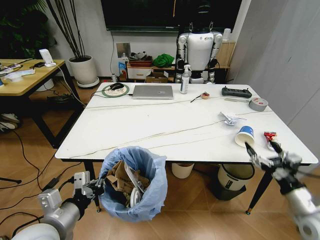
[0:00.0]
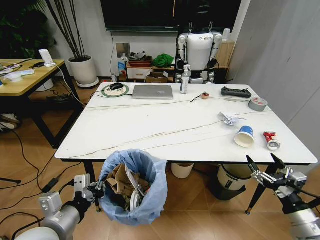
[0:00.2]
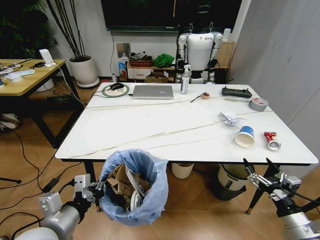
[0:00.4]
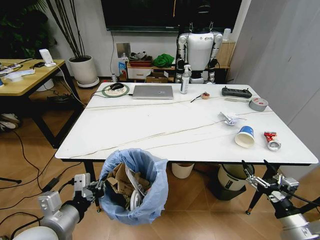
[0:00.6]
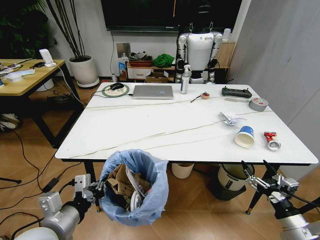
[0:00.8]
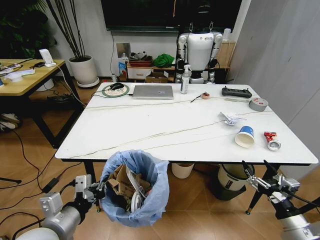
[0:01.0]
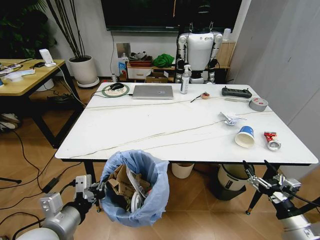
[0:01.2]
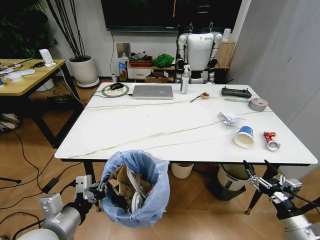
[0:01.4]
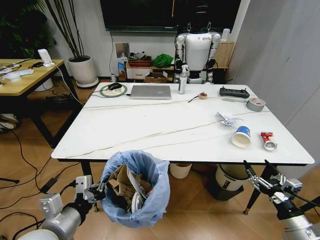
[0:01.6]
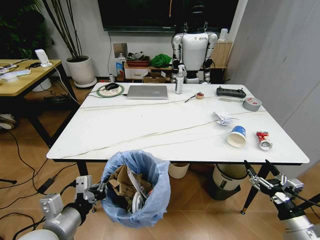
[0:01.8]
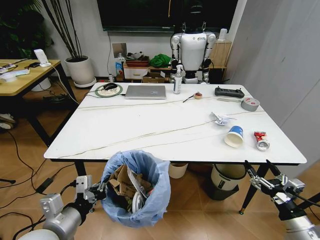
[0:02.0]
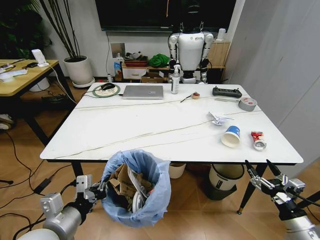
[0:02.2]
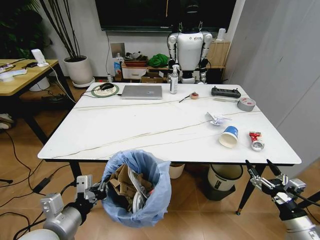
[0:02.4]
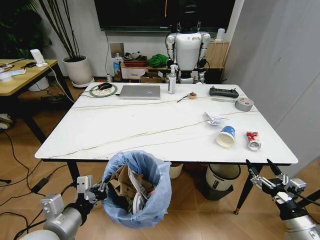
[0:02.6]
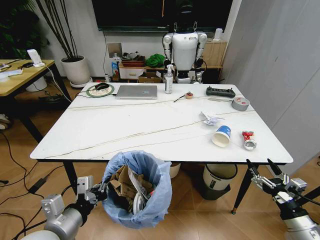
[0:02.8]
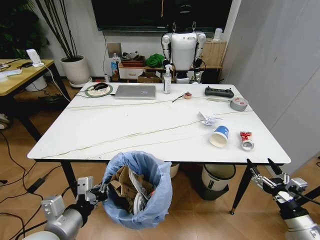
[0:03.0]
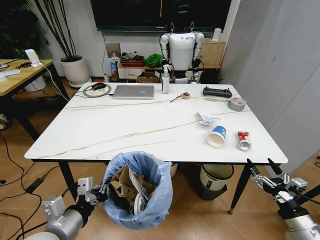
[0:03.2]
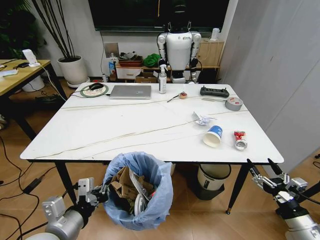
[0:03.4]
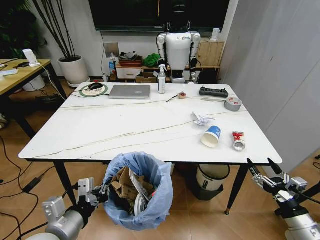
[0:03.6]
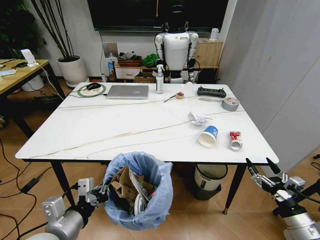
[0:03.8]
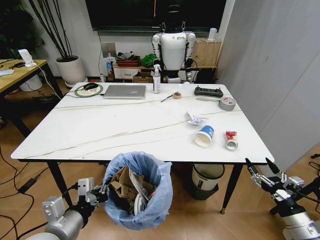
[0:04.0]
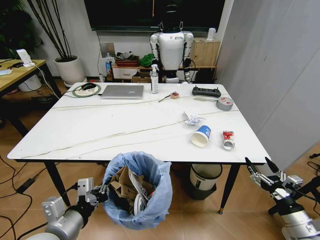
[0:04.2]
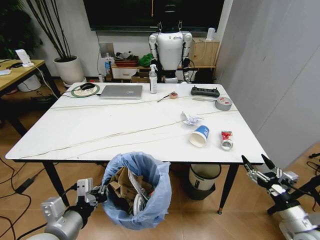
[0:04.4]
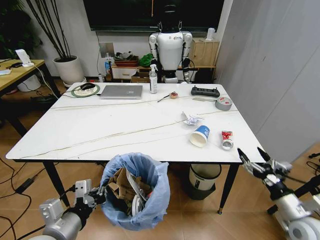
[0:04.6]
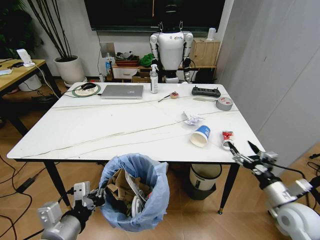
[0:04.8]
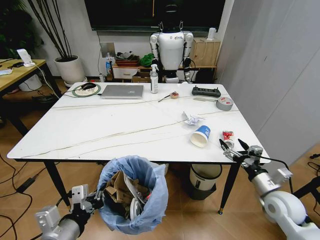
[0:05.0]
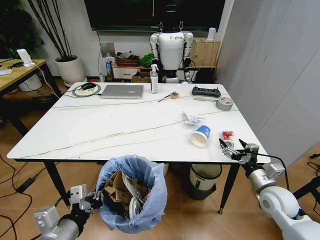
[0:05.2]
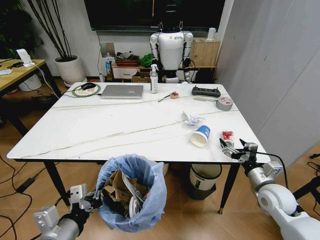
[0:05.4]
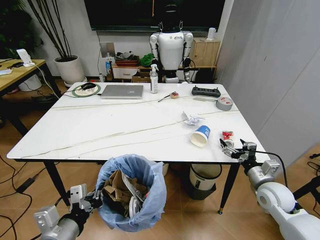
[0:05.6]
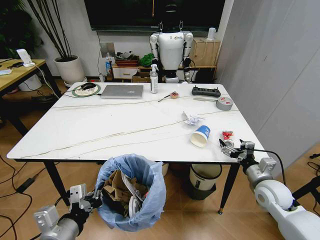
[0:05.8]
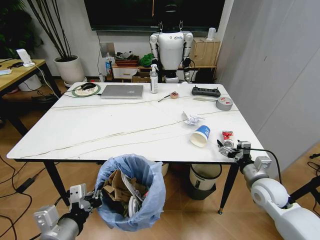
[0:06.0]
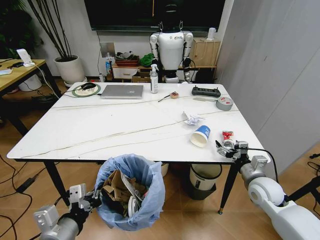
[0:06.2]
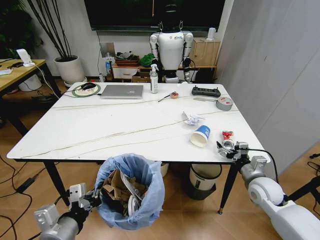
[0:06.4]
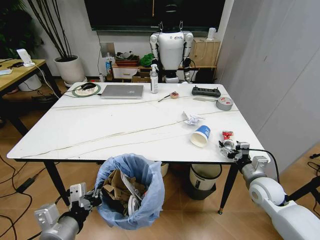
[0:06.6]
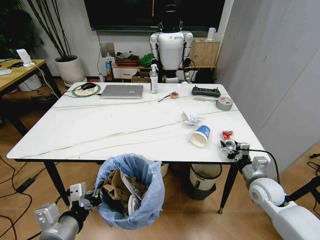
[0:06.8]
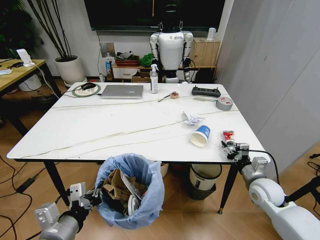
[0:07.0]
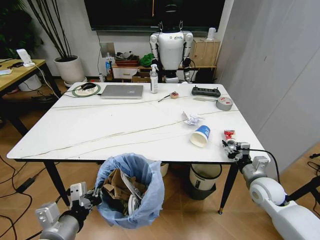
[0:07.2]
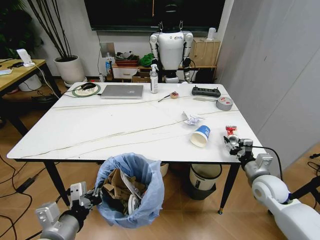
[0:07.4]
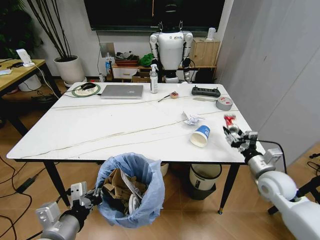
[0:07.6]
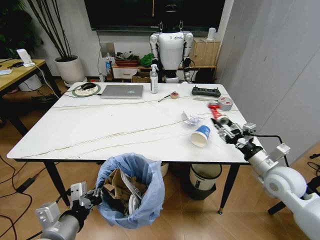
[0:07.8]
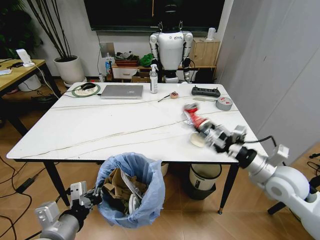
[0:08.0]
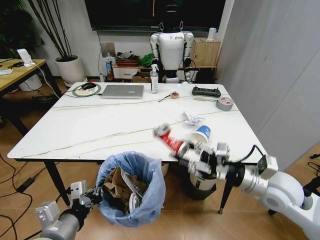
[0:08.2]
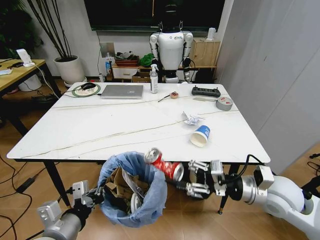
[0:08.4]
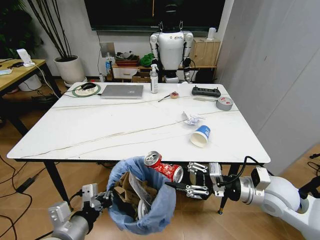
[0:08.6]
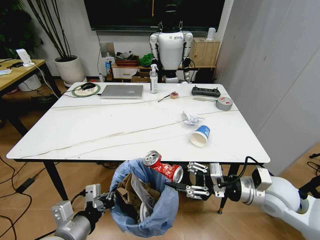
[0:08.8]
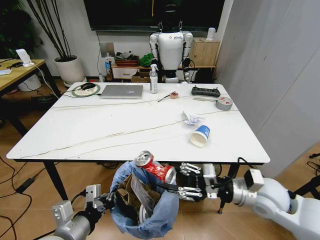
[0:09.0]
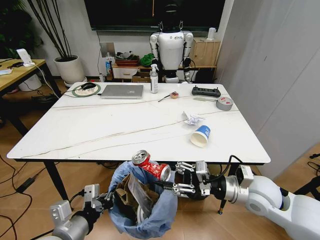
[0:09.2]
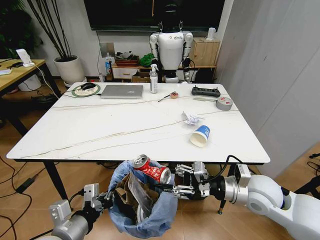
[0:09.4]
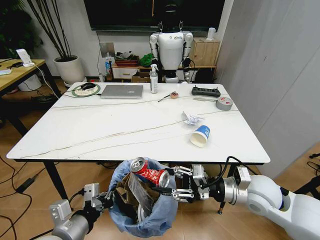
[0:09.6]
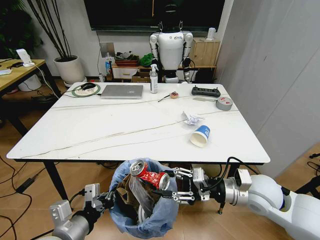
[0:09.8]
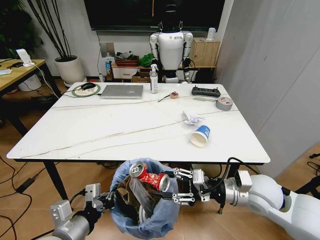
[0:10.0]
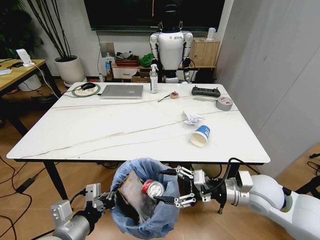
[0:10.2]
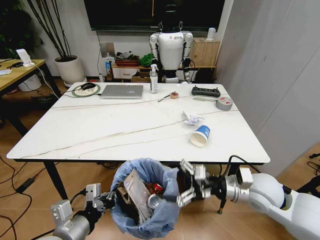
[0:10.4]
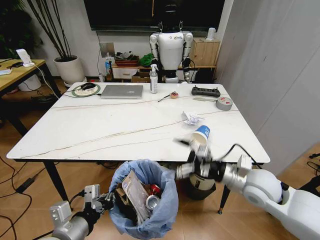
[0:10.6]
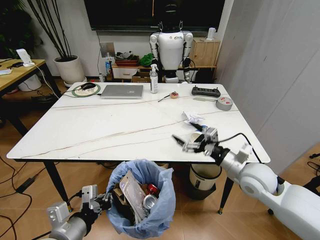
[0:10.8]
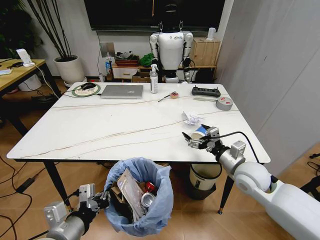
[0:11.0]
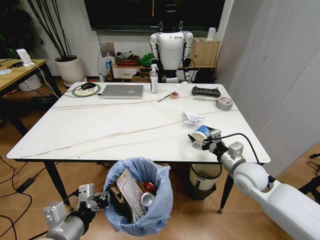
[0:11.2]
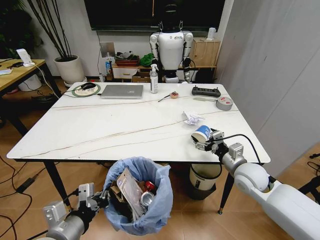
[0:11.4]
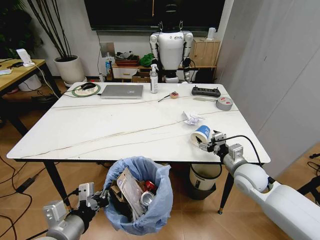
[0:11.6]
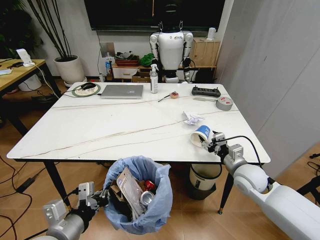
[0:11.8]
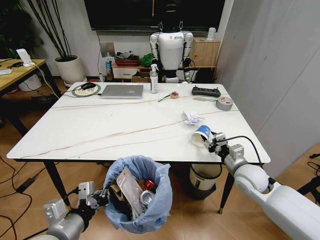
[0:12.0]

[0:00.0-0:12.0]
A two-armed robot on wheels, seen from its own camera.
Task of the whole recording: Pick up the trash bin and place the trash from the table into it.
0:00.0 to 0:01.6: The right gripper shifts by about 5 cm.
0:04.4 to 0:06.0: The right gripper is displaced forward by about 15 cm.
0:06.0 to 0:07.6: The right gripper closes.
0:07.6 to 0:09.0: The right gripper heads to the left, upward and backward, covering approximately 10 cm.
0:09.0 to 0:10.4: The right gripper opens.
0:10.4 to 0:12.0: The right gripper heads forward and downward, covering roughly 10 cm, and closes its fingers.

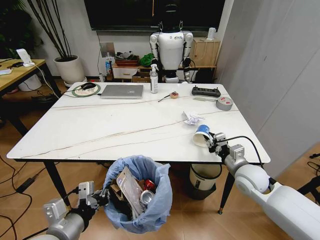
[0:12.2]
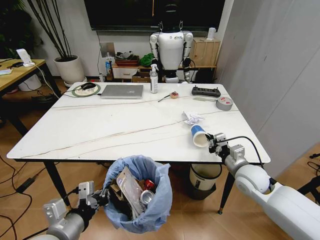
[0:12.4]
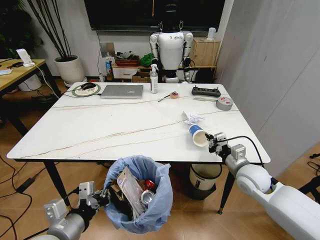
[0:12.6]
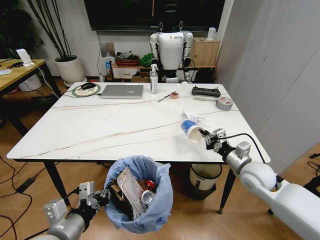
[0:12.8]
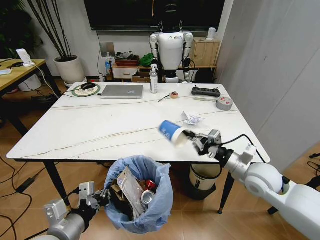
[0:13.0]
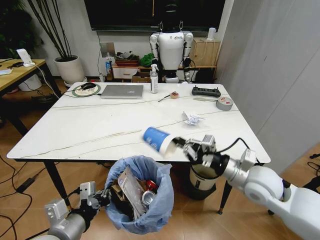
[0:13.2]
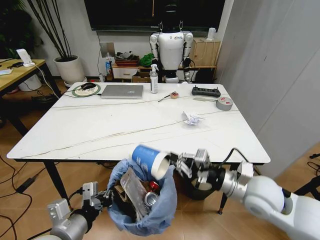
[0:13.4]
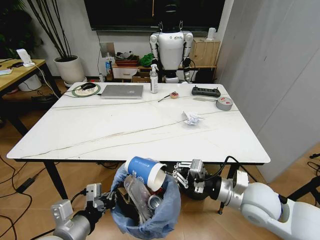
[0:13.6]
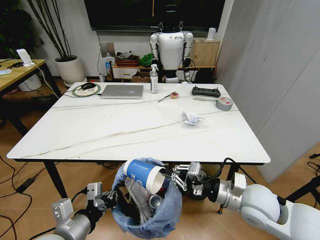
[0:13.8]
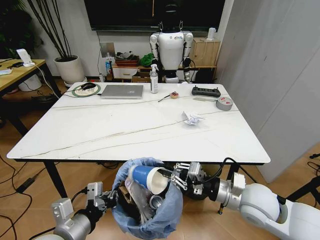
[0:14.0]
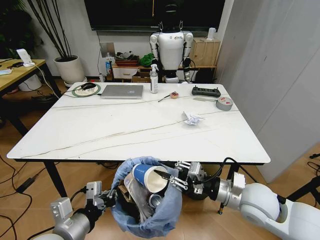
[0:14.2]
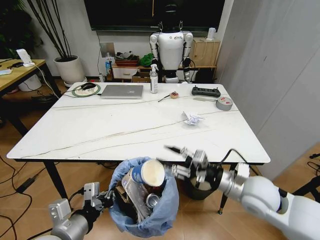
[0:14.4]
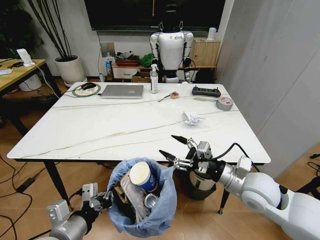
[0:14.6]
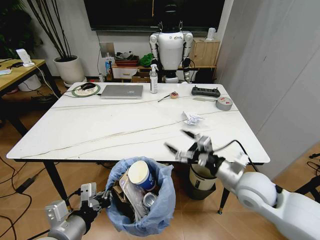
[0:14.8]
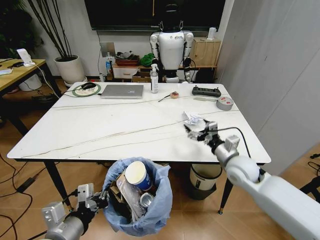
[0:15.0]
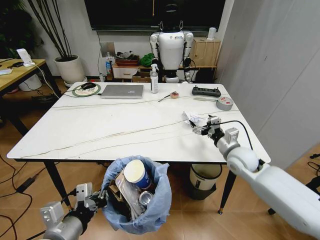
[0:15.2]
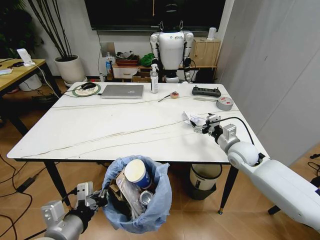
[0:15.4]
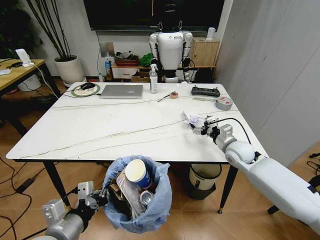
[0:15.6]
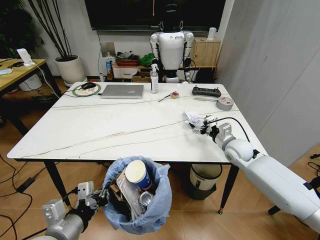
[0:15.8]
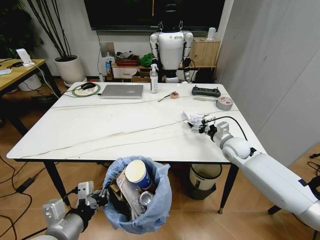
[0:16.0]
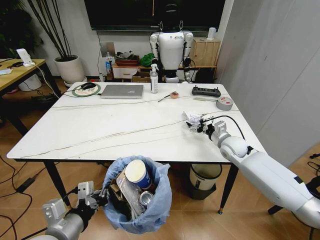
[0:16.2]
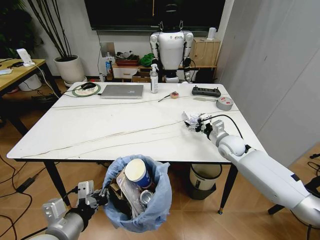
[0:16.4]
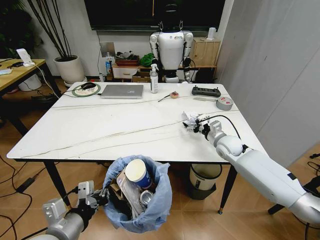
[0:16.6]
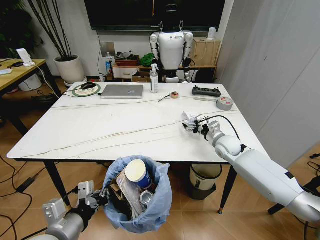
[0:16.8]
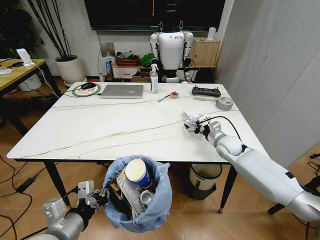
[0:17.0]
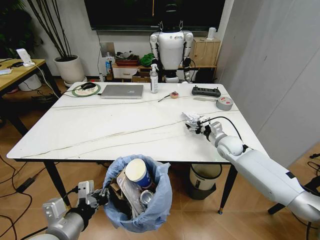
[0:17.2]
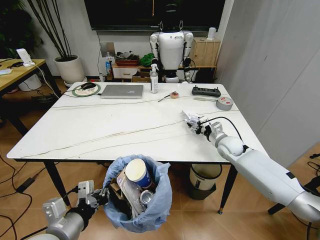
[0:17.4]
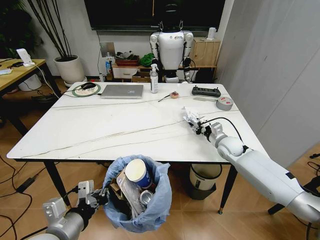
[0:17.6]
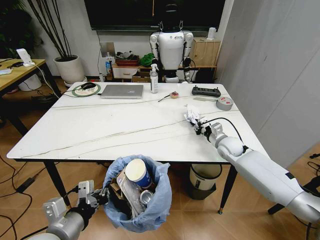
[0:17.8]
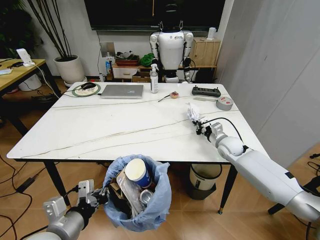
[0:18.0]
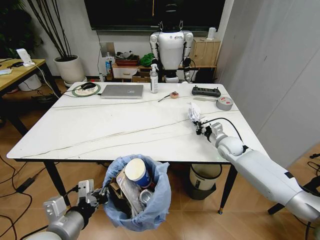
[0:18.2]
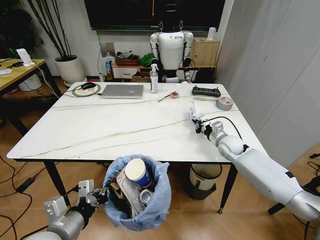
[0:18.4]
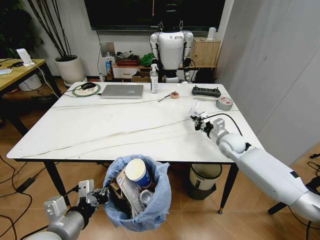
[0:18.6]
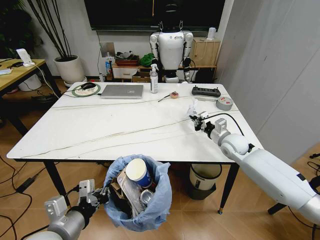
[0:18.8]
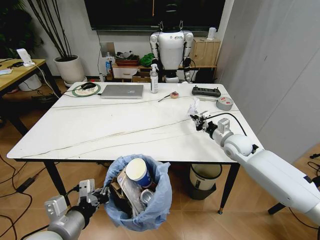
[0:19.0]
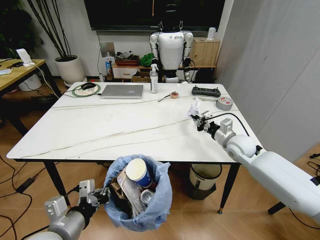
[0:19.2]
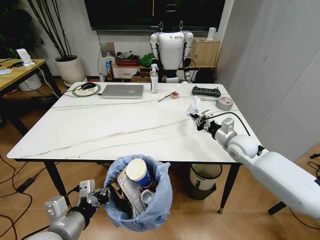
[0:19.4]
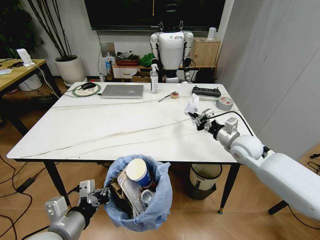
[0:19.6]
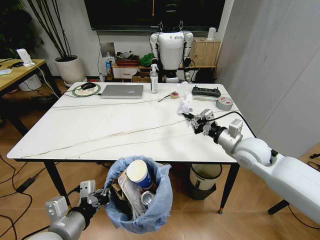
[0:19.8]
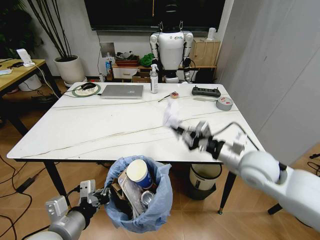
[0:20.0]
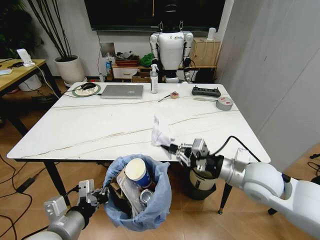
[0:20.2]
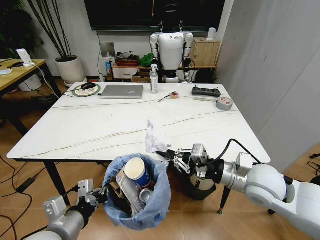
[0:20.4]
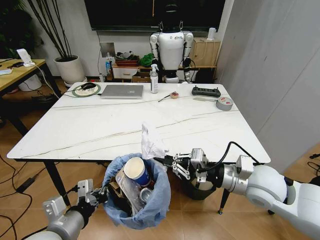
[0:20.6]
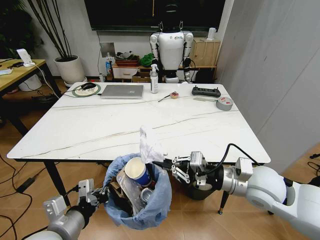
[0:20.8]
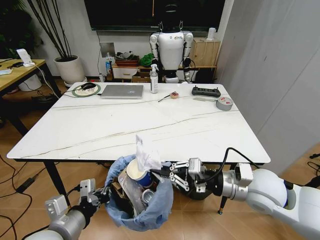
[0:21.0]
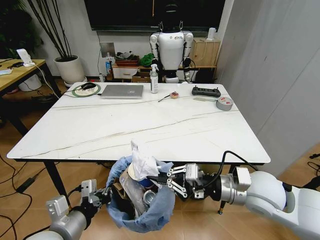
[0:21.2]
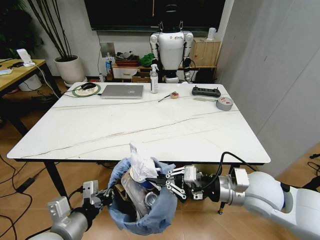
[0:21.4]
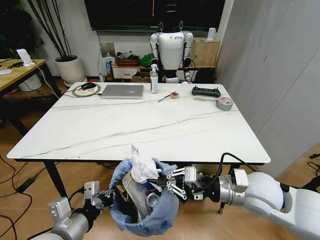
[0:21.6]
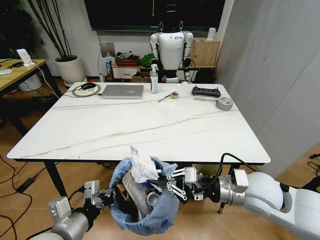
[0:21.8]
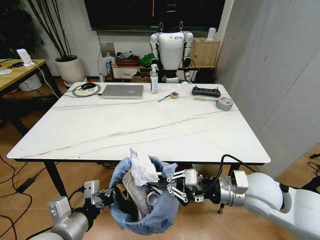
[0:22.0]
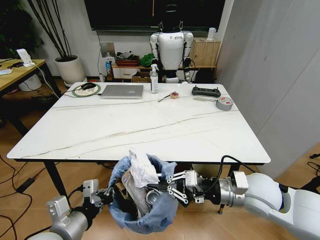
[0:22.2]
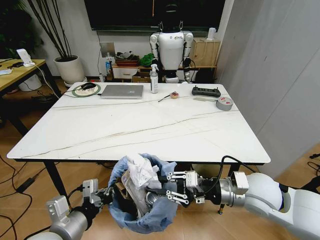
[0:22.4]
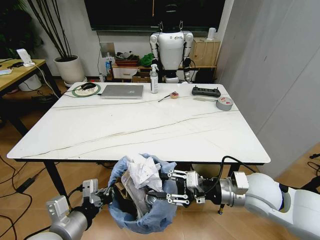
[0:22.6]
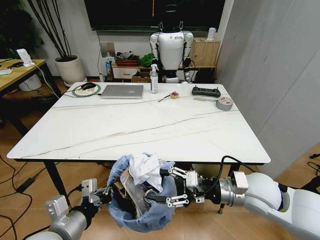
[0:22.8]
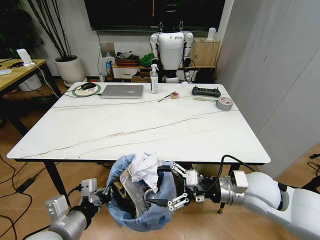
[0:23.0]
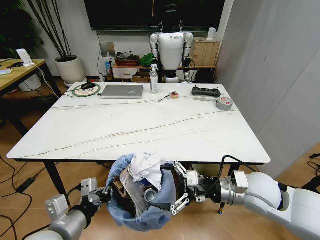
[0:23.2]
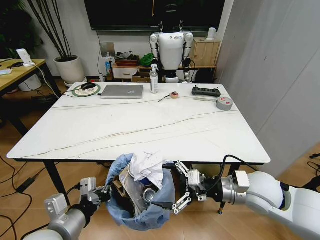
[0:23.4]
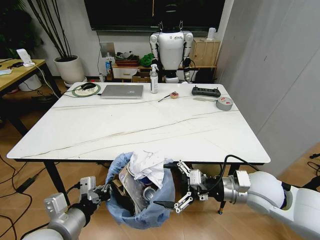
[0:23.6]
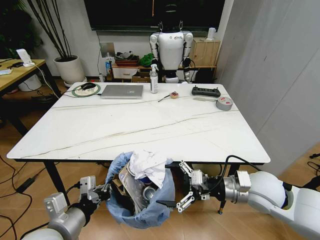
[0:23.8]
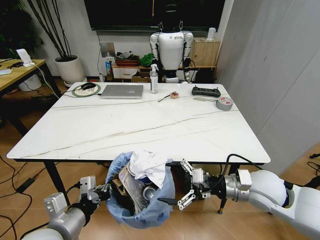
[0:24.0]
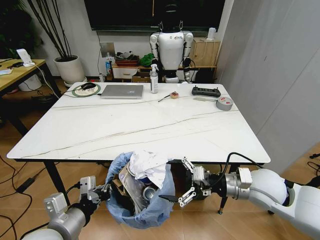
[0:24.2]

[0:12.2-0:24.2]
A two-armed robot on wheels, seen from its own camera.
Task of the whole recording: Pick up the trash bin and place the trash from the table into it.
0:12.2 to 0:13.8: The right gripper travels backward and upward by roughly 10 cm.
0:13.8 to 0:15.2: The right gripper shifts approximately 15 cm forward, and opens up.
0:15.2 to 0:16.6: The right gripper travels forward by about 10 cm.
0:16.6 to 0:18.2: The right gripper closes its fingers.
0:18.2 to 0:19.8: The right gripper travels upward and backward by about 15 cm.
0:19.8 to 0:21.2: The right gripper heads backward, covering roughly 10 cm.
0:21.2 to 0:22.6: The right gripper opens.
0:22.6 to 0:24.2: The right gripper opens its fingers.
